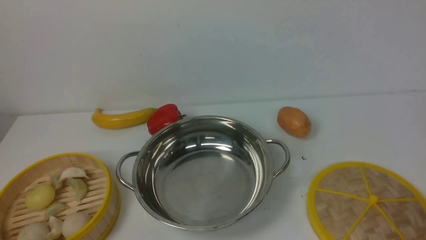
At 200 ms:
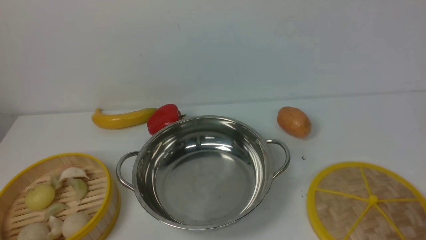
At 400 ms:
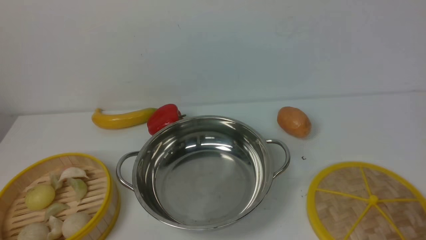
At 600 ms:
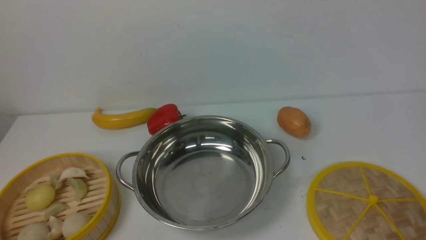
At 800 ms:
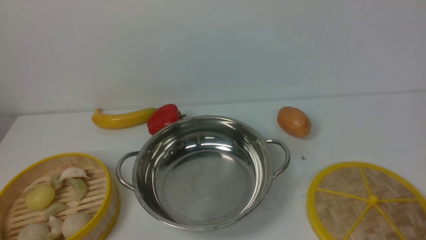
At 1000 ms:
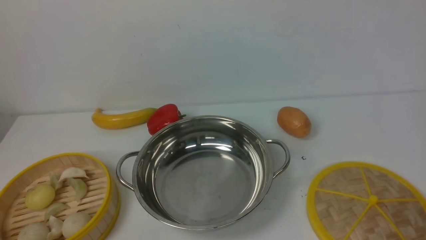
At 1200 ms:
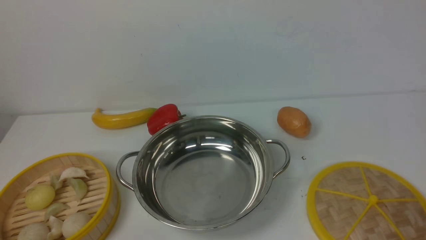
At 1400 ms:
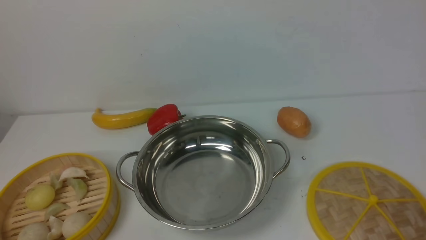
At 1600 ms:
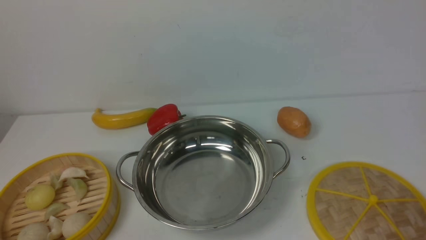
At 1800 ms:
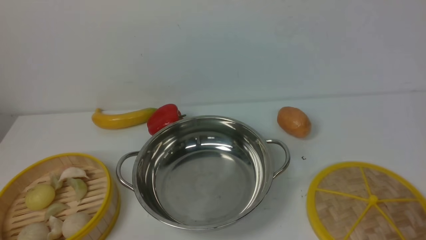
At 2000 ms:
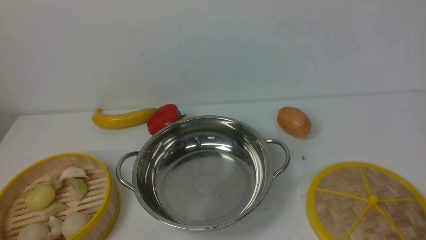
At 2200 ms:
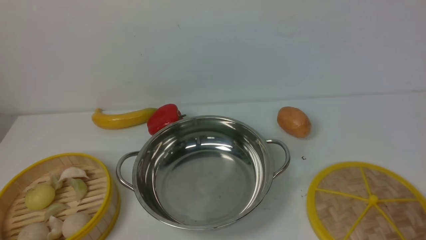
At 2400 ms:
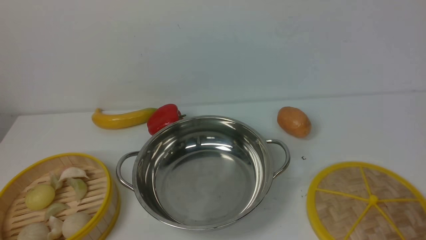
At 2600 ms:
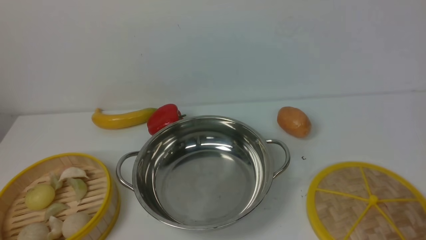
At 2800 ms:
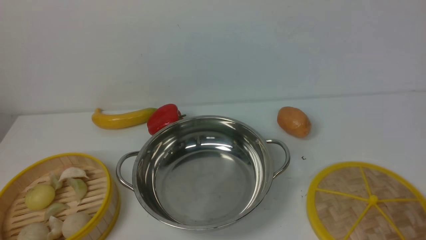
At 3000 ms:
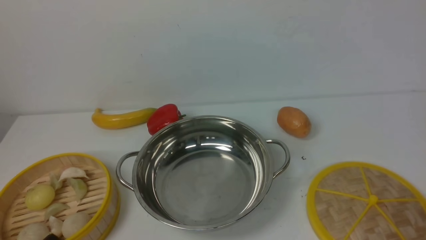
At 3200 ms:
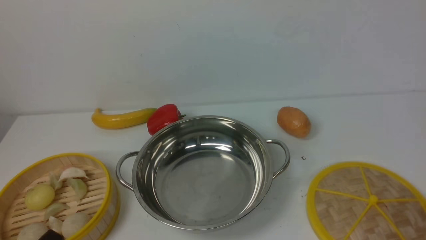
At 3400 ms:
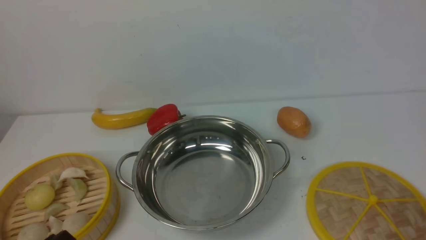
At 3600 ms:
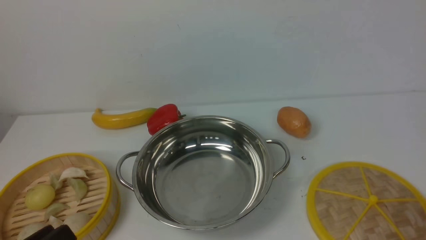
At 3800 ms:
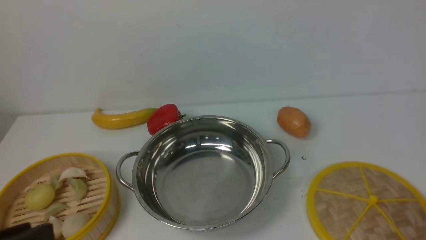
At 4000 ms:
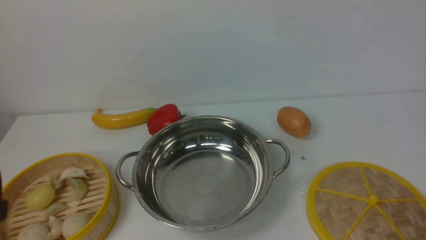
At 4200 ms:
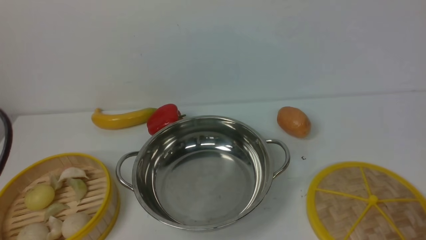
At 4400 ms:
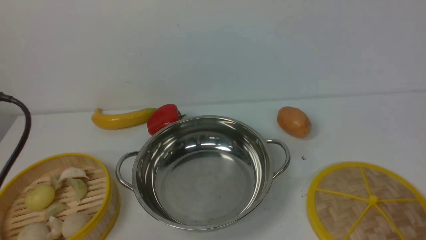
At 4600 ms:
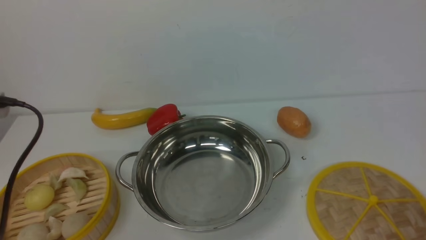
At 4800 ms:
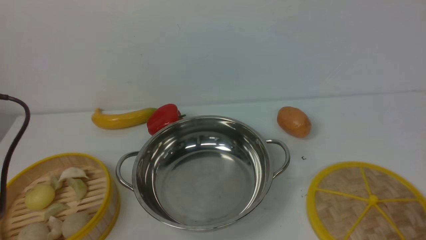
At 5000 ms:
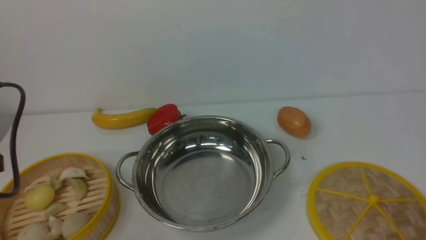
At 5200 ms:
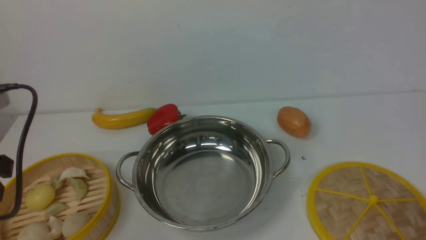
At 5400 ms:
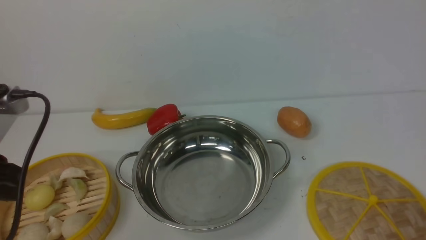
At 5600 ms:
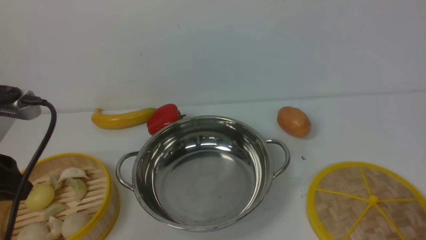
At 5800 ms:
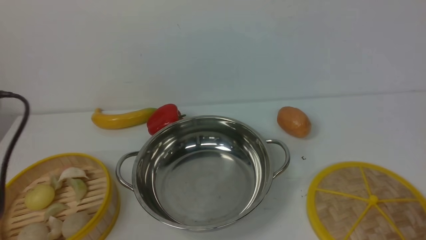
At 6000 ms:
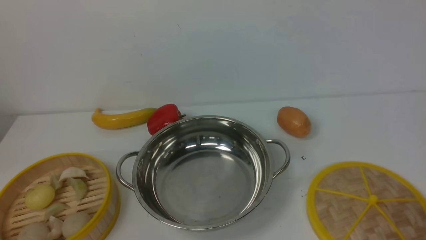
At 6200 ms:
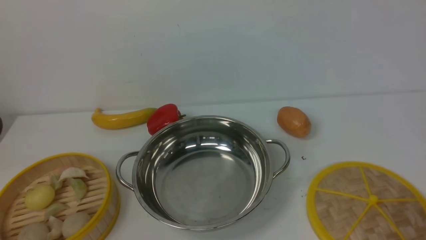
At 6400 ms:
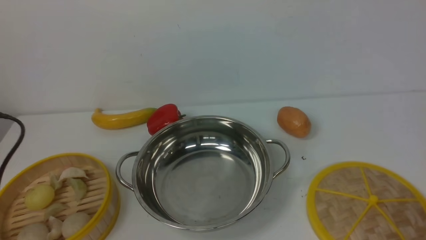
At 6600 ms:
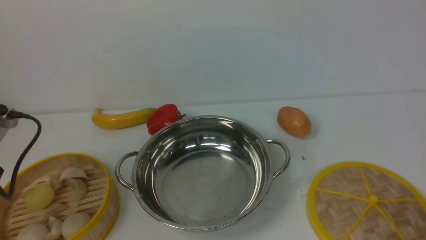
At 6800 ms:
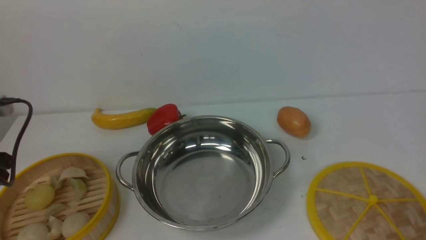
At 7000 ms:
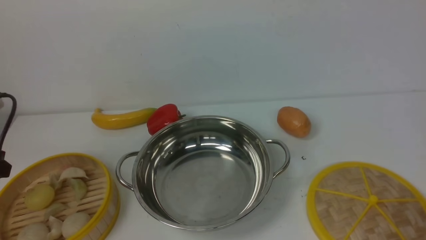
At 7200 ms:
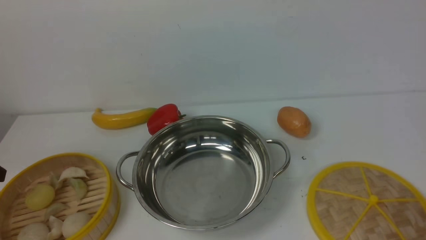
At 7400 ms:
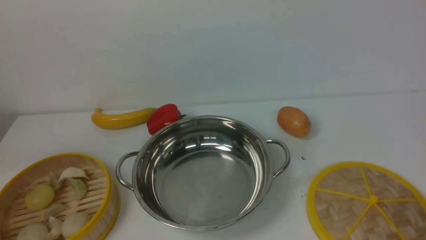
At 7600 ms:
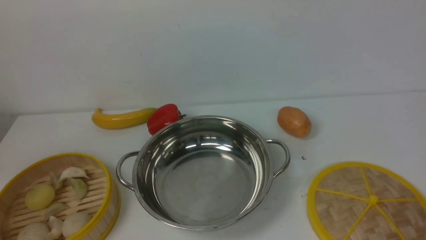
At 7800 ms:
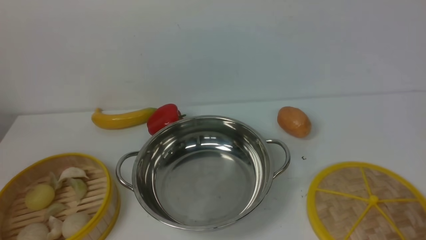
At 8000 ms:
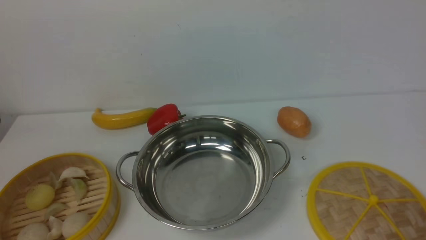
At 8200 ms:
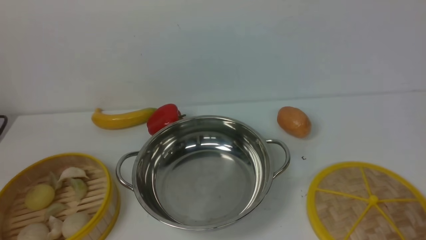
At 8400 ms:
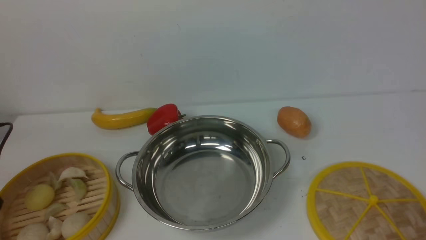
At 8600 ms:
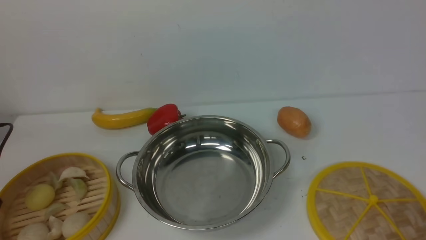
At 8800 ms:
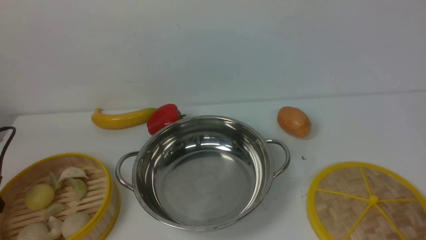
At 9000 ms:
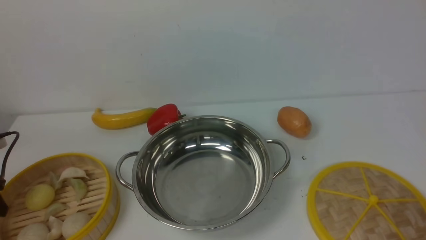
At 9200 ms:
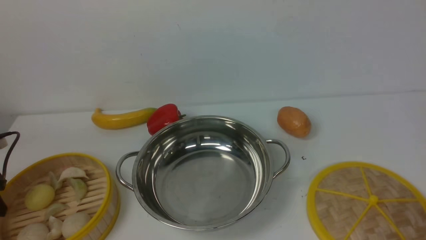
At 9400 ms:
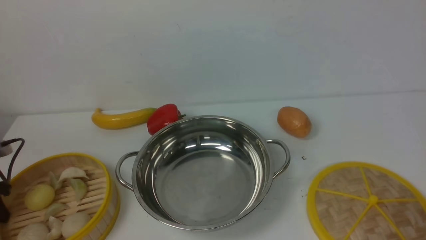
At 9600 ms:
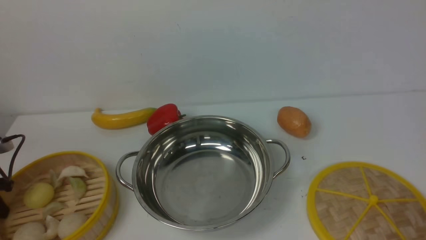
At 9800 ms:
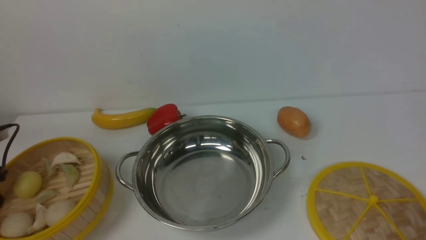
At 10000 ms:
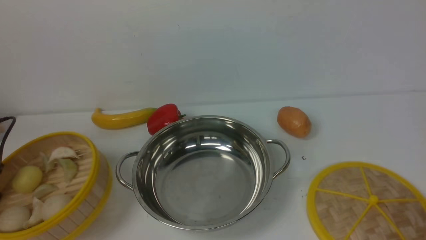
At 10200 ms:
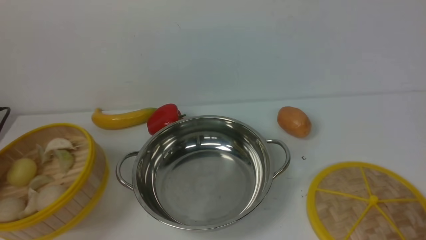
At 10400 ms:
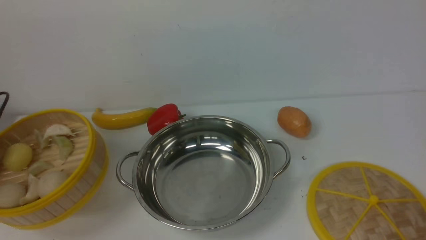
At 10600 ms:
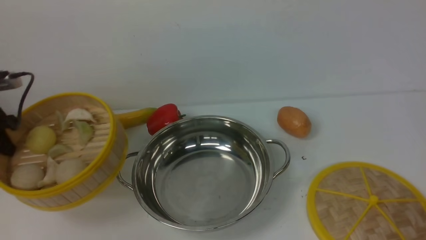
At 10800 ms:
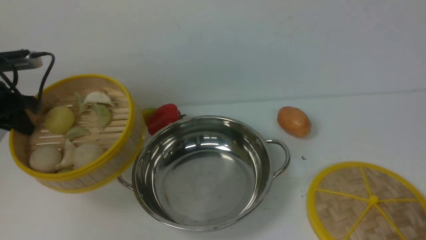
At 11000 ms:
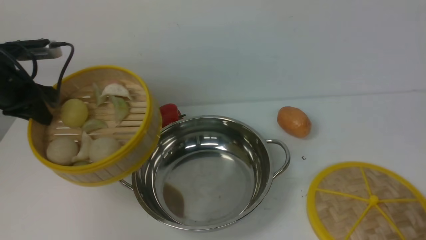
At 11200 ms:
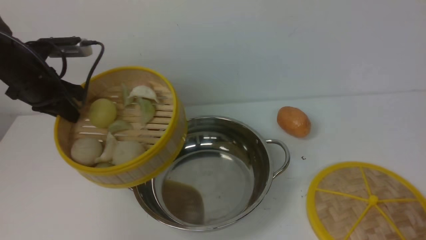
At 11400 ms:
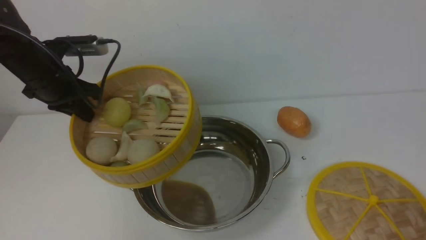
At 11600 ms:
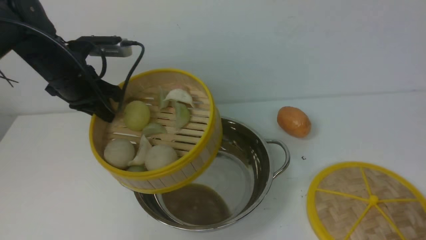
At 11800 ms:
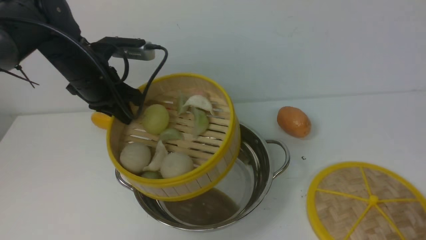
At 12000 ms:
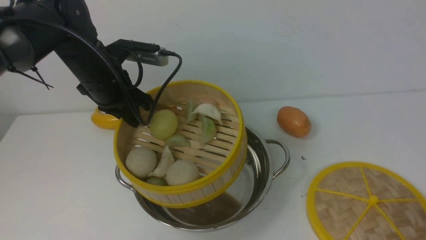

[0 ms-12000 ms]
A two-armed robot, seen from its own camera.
Task of the whole recording: place the steamer in the pot on the white table, and put the lid on the steamer.
Step, 0 ms to 10200 ms: use the left arm to lift the steamer closest to it.
0 ms to 1600 ms: Both grippers stay put.
3000 ms to 4400 ms: The left gripper travels upward and forward by about 20 cm.
4400 ms to 6000 ms: The left gripper heads to the left, covering approximately 5 cm.
6000 ms to 7600 ms: The left gripper travels to the left, downward and forward by some 15 cm.
9000 ms to 10400 ms: The left gripper is displaced upward by roughly 5 cm, and closes up.
10400 ms to 12000 ms: The left gripper shifts roughly 25 cm to the right.

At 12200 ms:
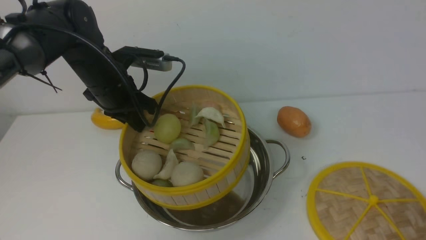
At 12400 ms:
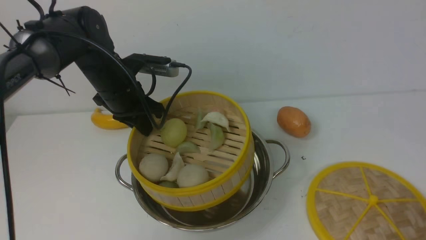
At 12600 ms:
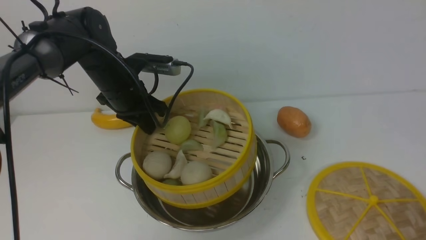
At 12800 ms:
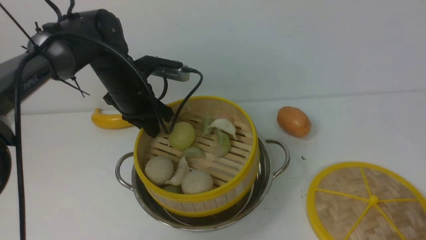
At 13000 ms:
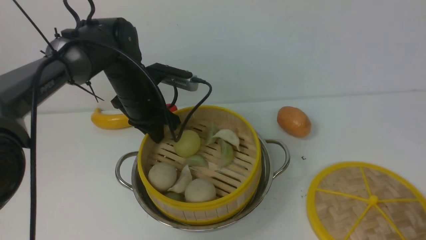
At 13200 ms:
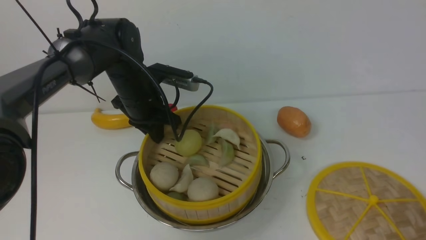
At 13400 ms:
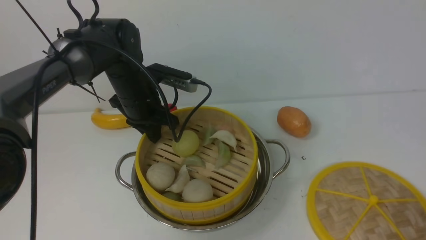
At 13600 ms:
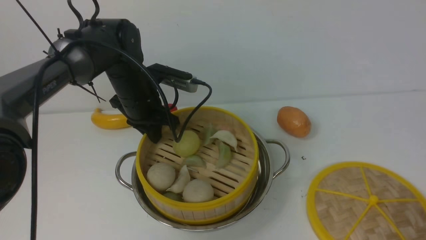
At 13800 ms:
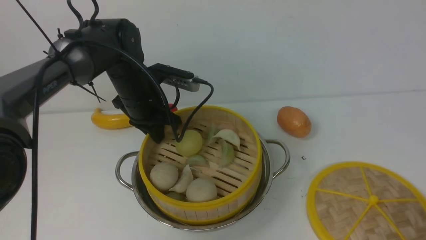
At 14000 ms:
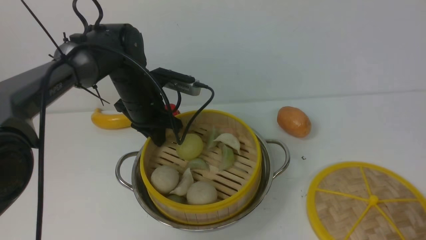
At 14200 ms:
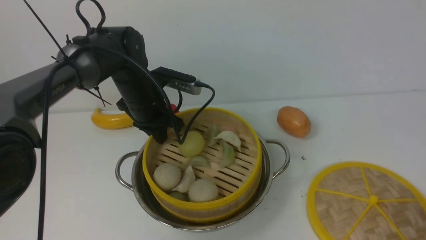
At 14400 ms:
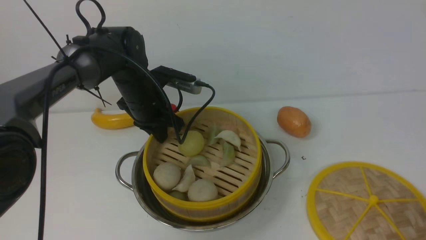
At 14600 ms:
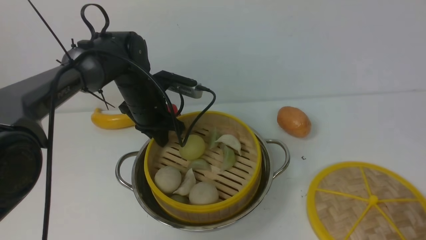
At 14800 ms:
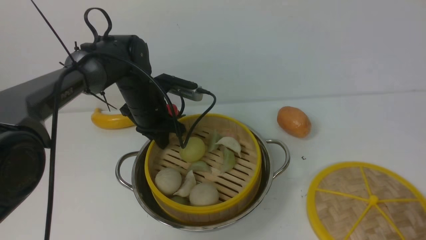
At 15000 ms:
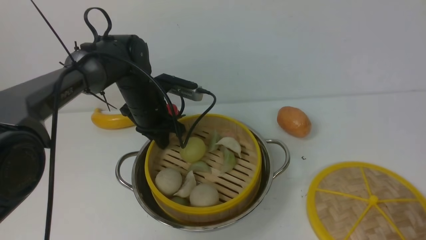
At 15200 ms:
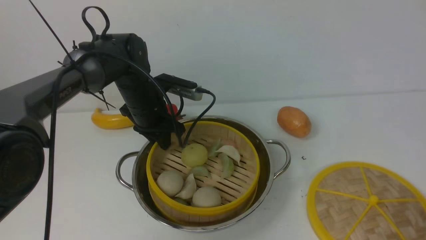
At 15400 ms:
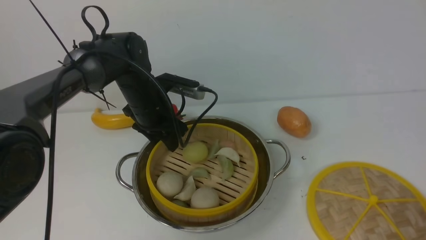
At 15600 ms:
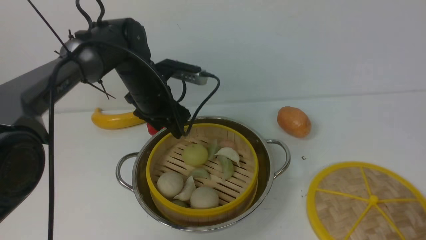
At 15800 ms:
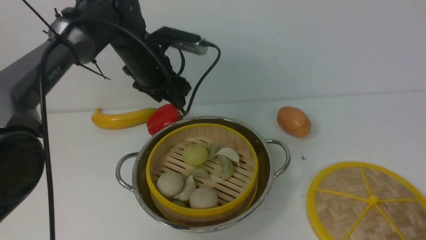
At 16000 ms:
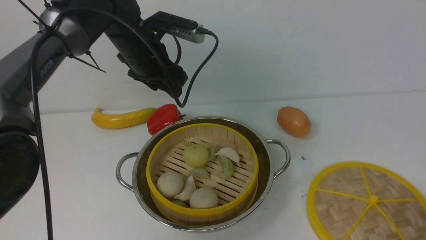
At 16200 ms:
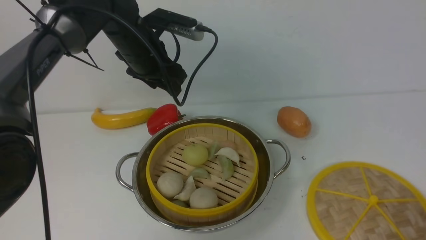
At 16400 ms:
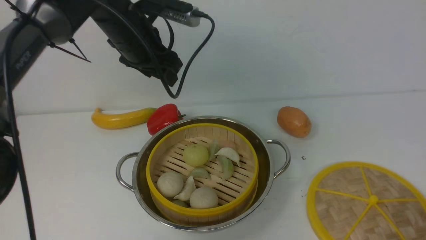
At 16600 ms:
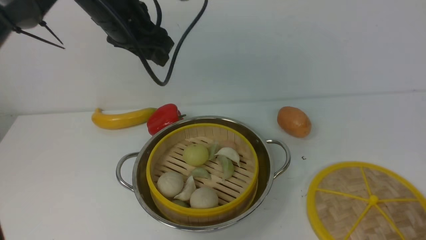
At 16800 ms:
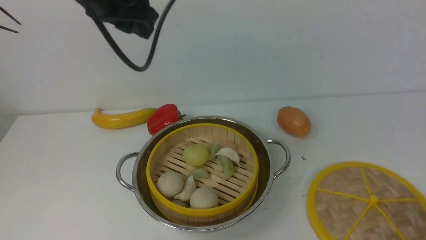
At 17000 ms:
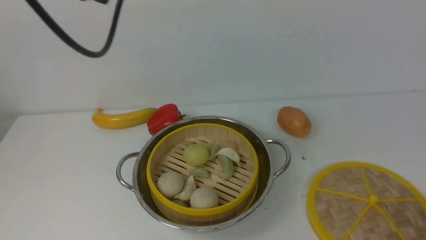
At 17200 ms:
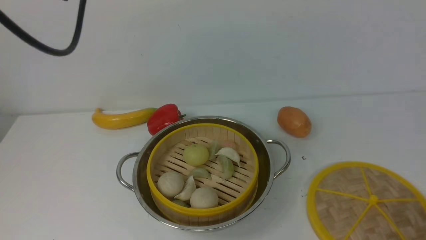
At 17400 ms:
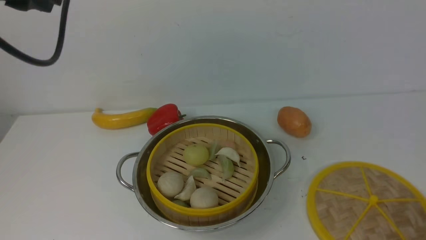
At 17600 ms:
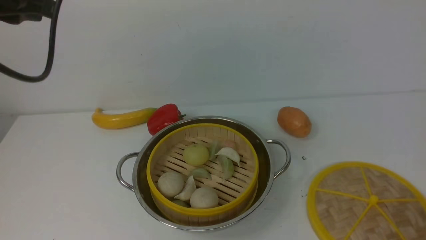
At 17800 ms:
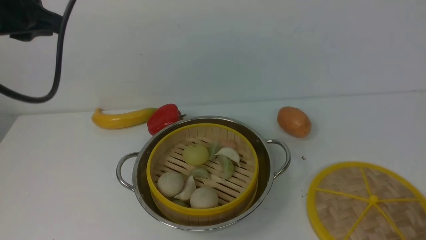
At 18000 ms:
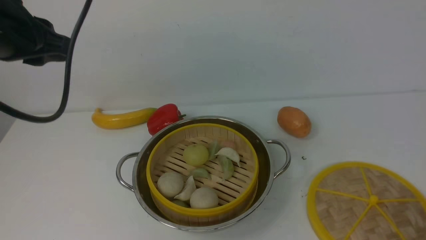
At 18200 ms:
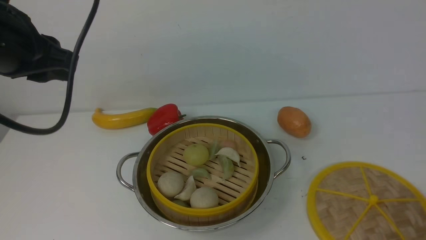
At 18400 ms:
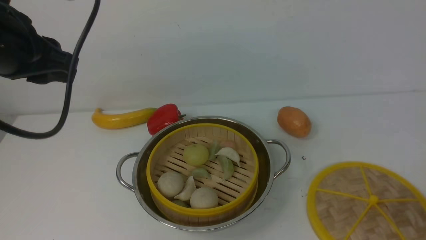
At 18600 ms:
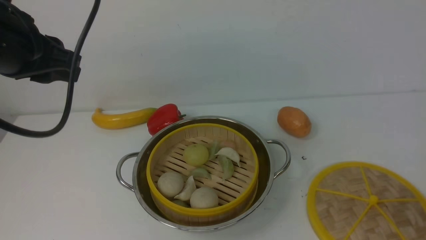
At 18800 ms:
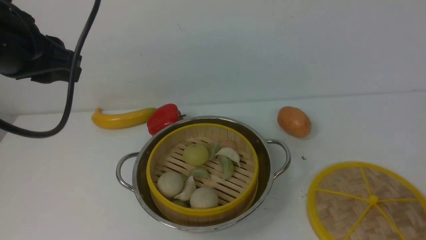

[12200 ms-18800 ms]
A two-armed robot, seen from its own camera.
Task of the whole recording: place the steamer in the pot on the white table, and put the lid on the steamer.
Step, 12200 ms to 16000 ms: use the left arm to put the steamer into the iron steamer pot in the middle.
12200 ms to 13800 ms: The left gripper moves approximately 5 cm.
13800 ms to 15400 ms: The left gripper opens up.
15400 ms to 17200 ms: The left gripper travels upward and backward by approximately 30 cm, and closes up.
17200 ms to 18800 ms: The left gripper shifts approximately 5 cm downward.
